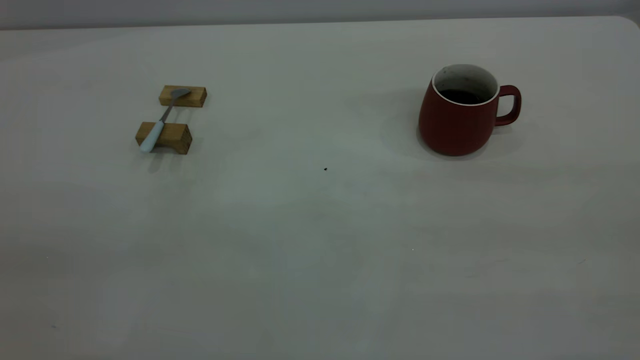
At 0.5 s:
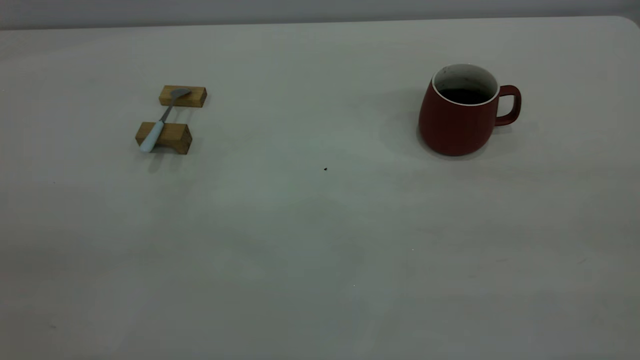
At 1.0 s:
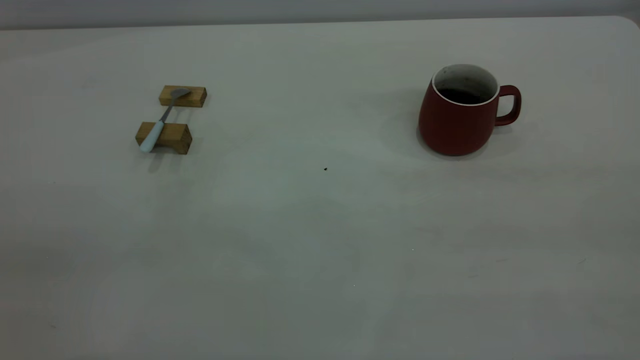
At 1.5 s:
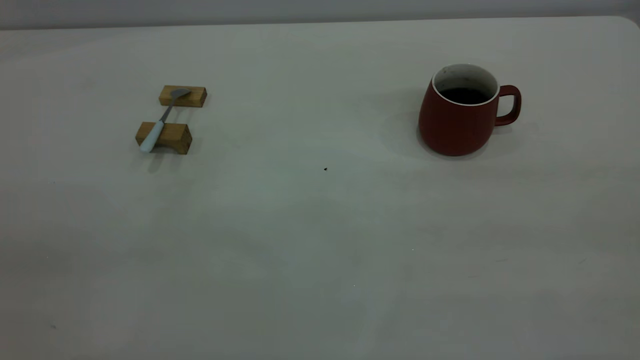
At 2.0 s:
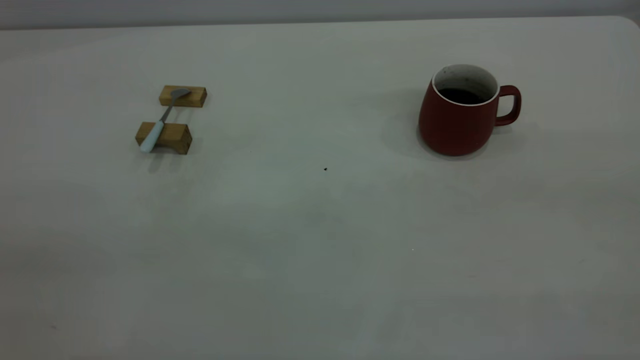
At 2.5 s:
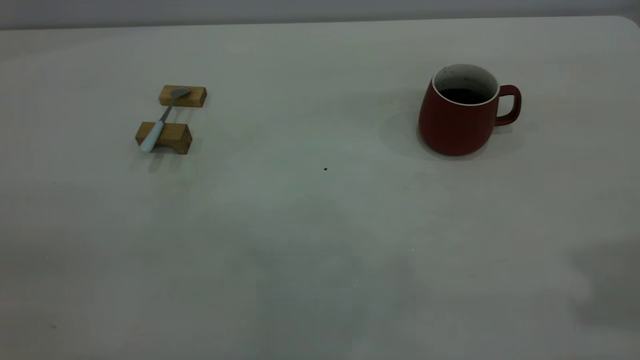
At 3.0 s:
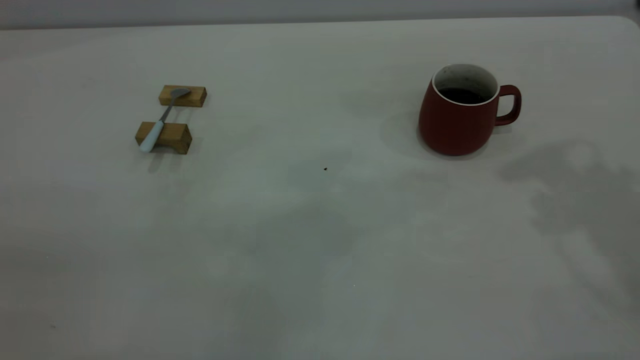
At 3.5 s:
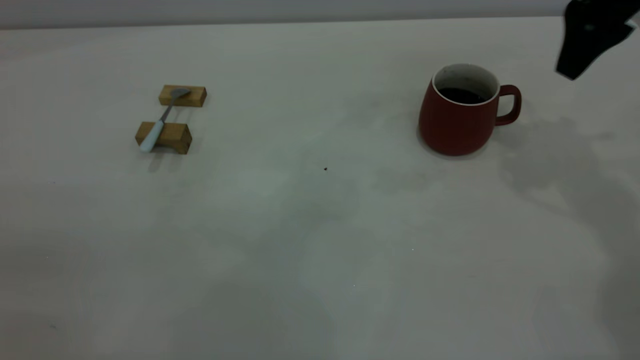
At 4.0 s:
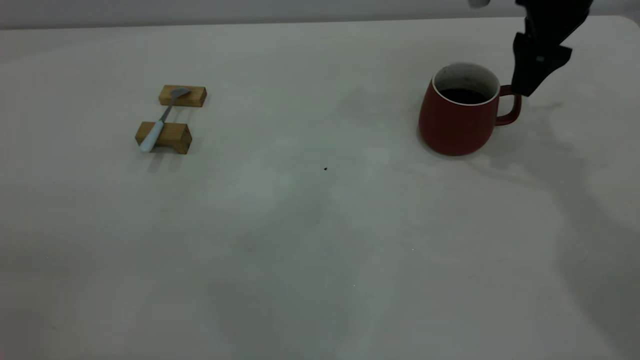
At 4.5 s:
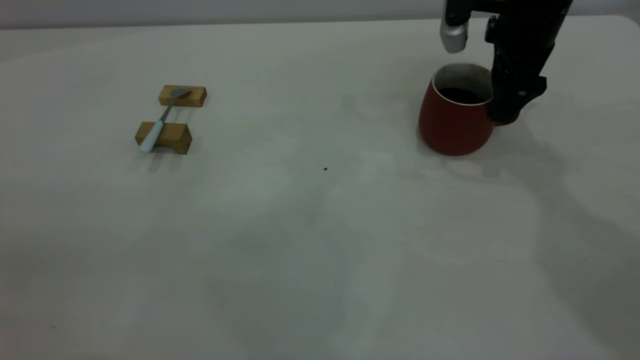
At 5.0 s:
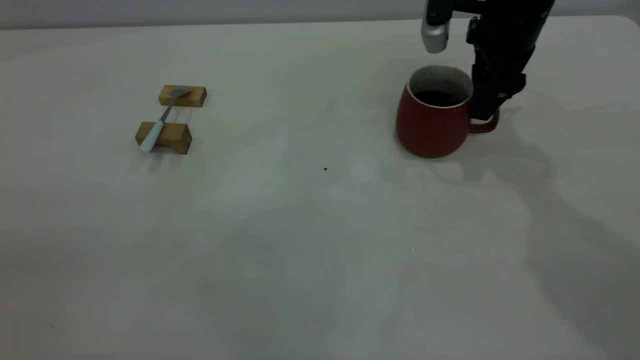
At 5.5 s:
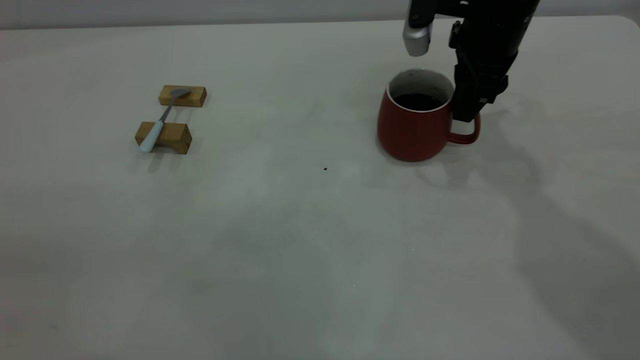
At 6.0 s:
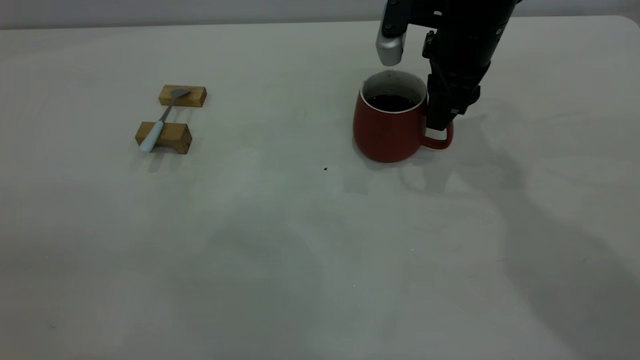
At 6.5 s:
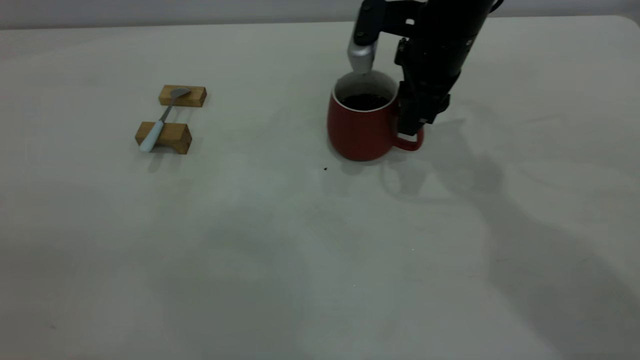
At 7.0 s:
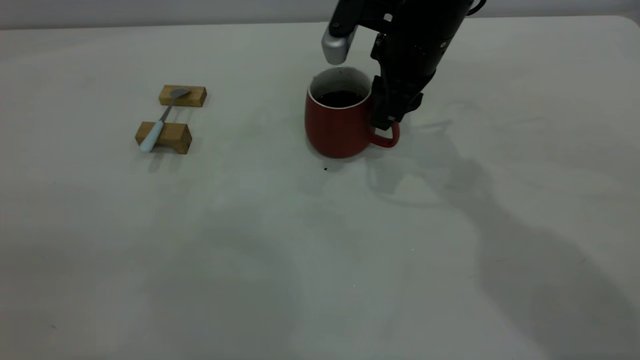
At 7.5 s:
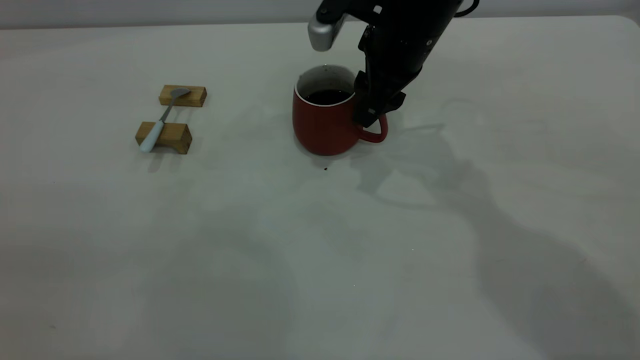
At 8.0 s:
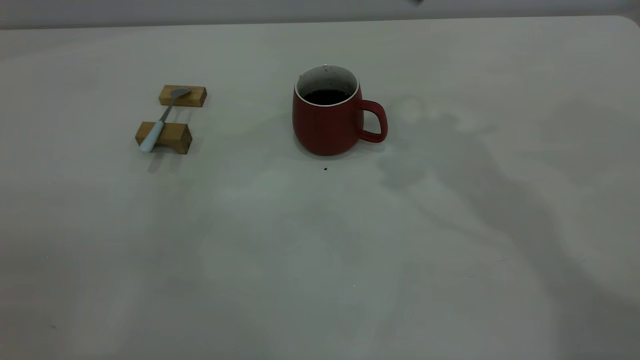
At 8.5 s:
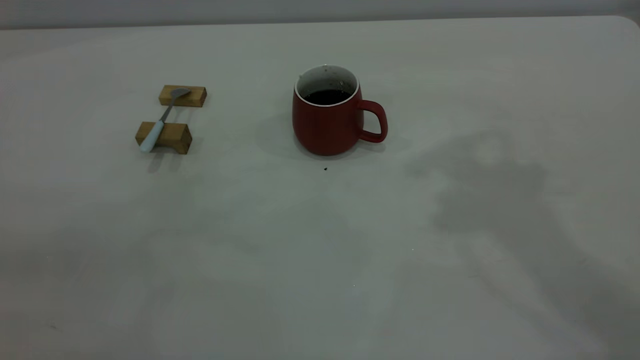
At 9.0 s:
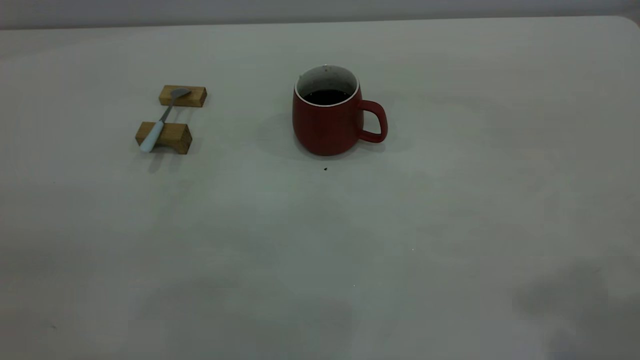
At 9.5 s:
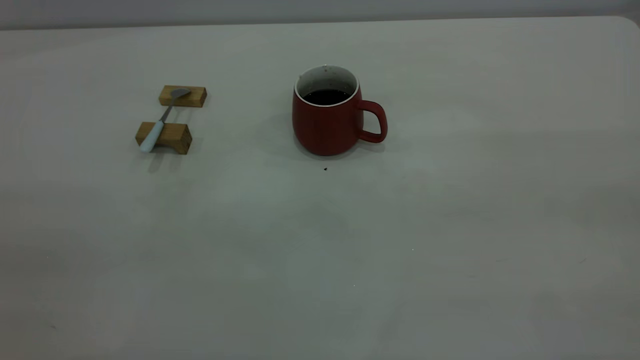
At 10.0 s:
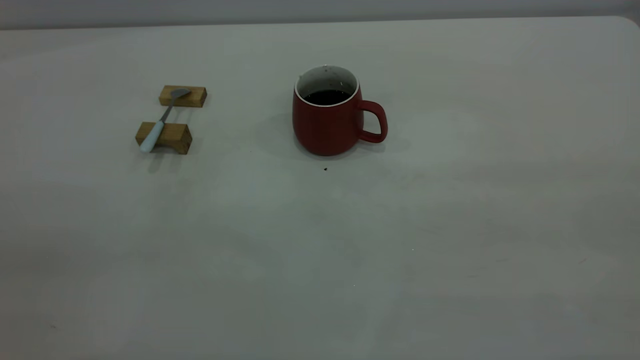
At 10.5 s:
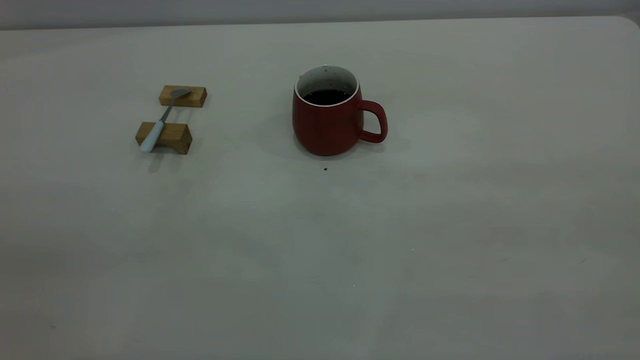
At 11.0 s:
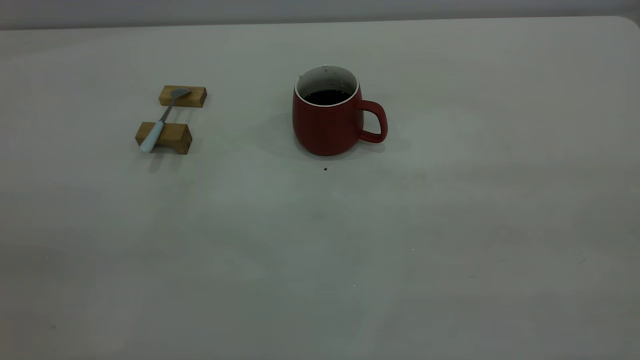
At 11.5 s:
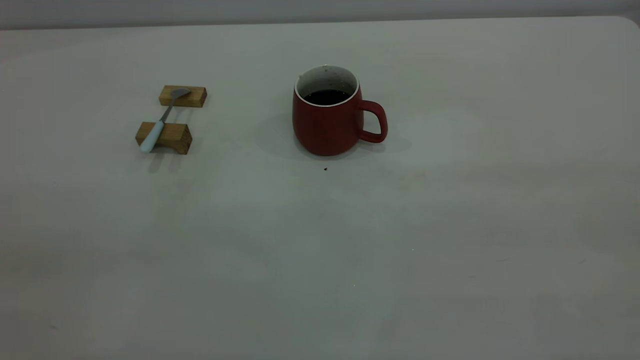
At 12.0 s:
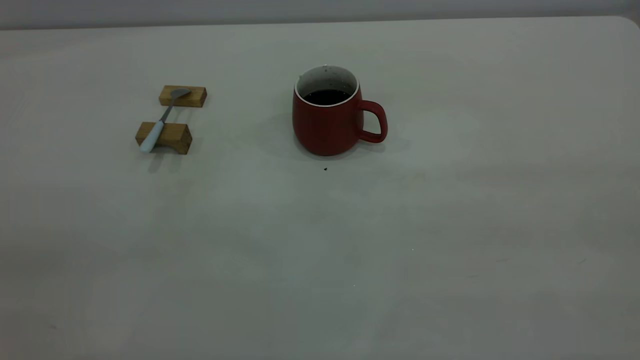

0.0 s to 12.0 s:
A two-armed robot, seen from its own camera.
Step, 0.0 to 7.5 s: Move the cup with coffee to the center of view.
2.0 to 4.0 s: The right gripper is displaced forward and downward by approximately 50 cm, and opens.
4.0 to 6.0 s: The right gripper shifts approximately 10 cm to the left, and closes up.
6.0 to 8.0 s: The right gripper travels upward by roughly 20 cm, and opens up.

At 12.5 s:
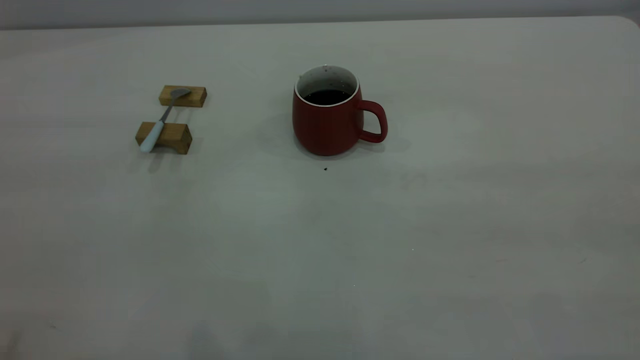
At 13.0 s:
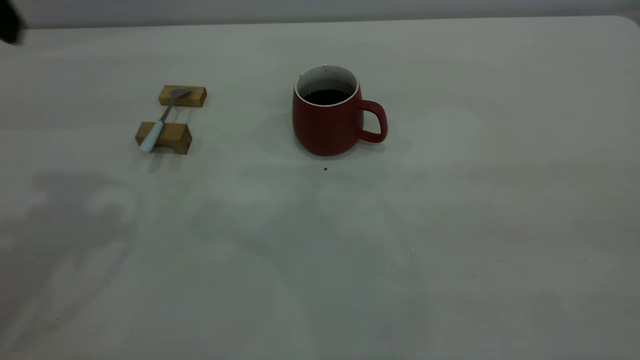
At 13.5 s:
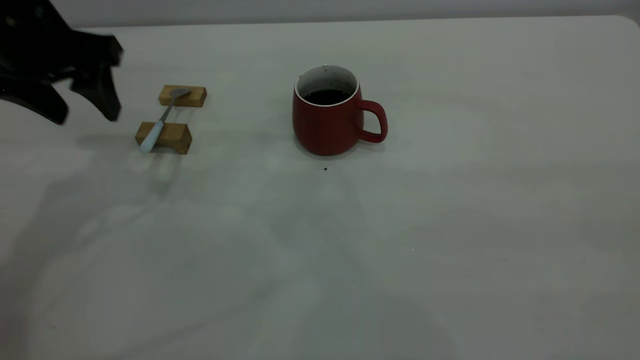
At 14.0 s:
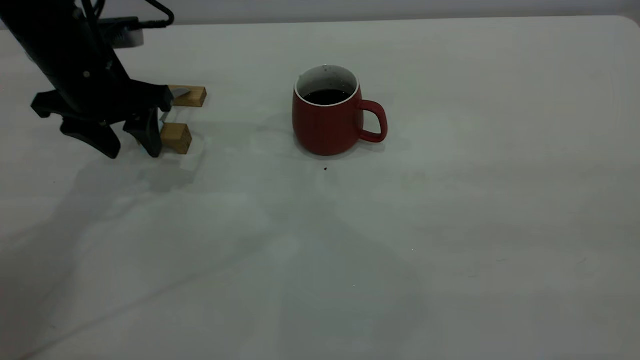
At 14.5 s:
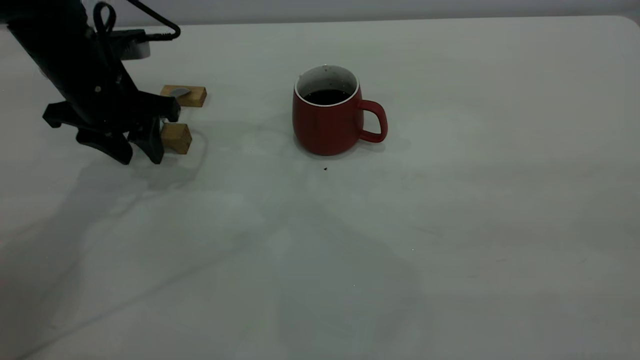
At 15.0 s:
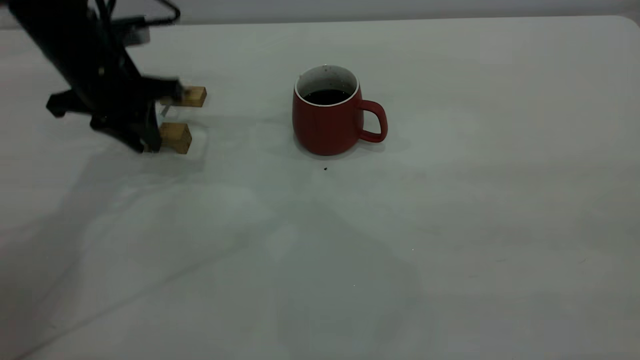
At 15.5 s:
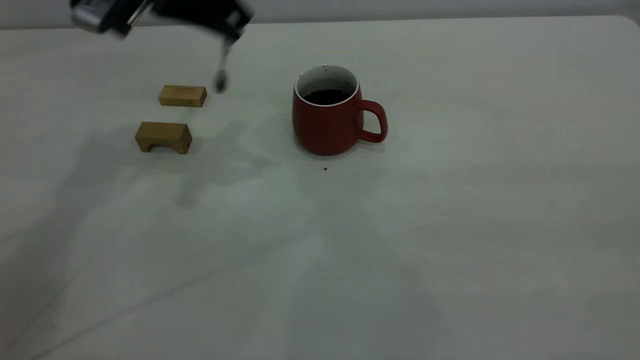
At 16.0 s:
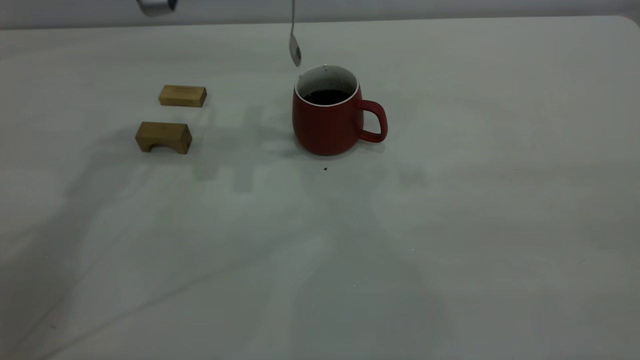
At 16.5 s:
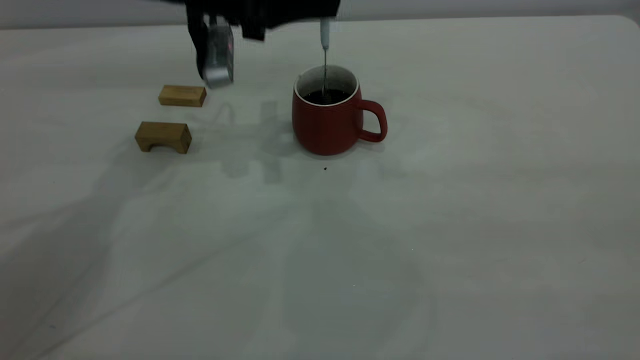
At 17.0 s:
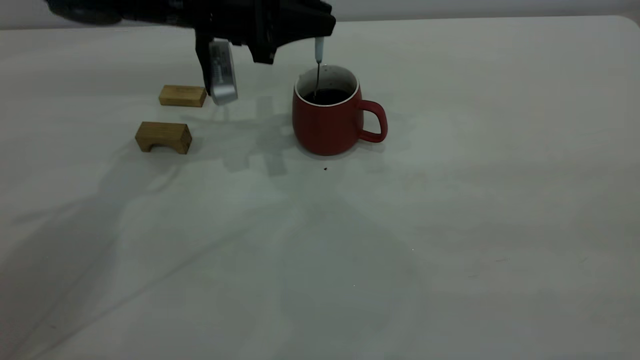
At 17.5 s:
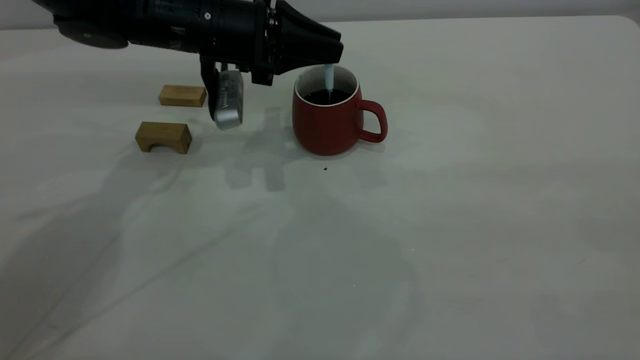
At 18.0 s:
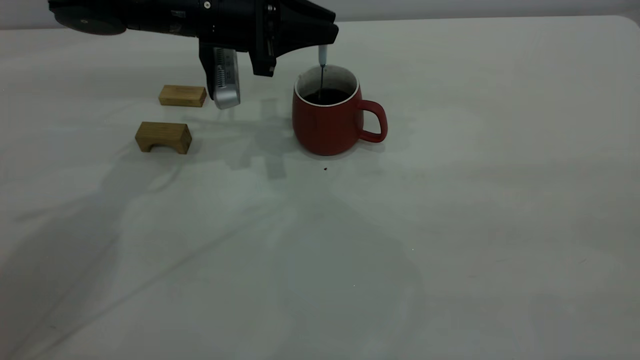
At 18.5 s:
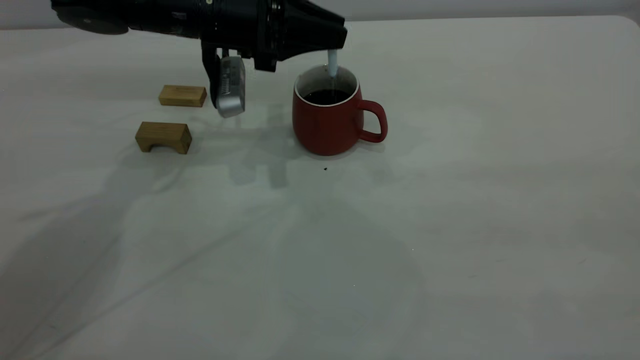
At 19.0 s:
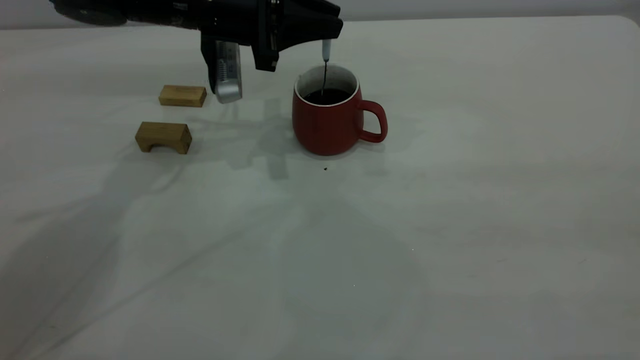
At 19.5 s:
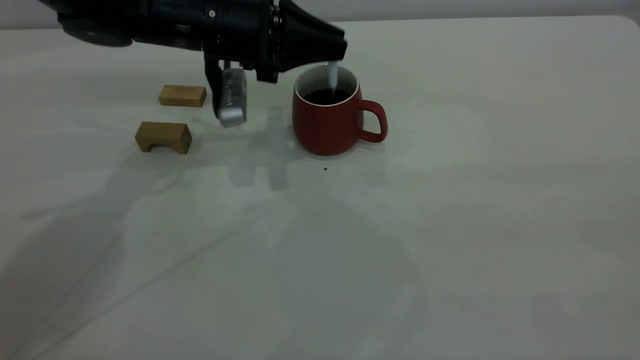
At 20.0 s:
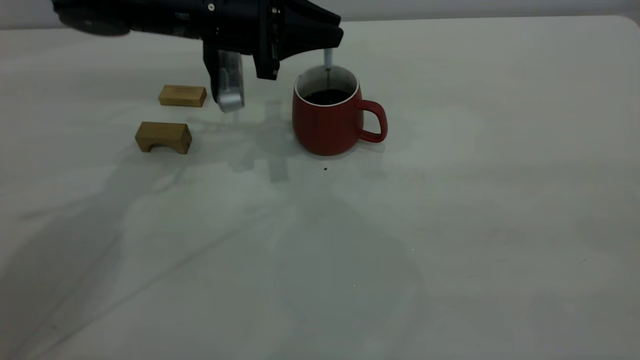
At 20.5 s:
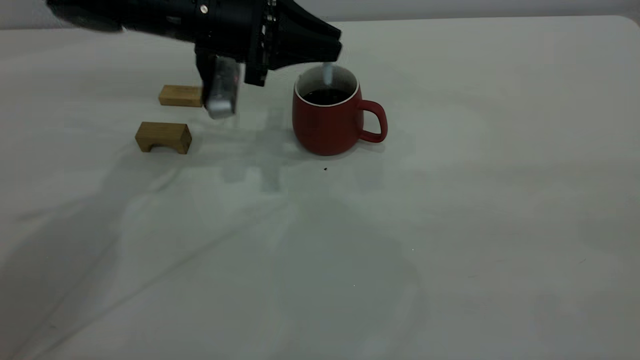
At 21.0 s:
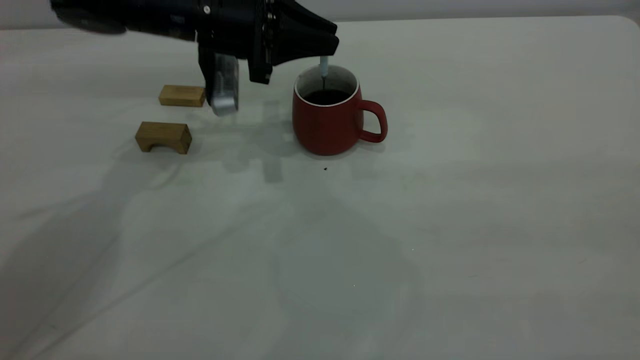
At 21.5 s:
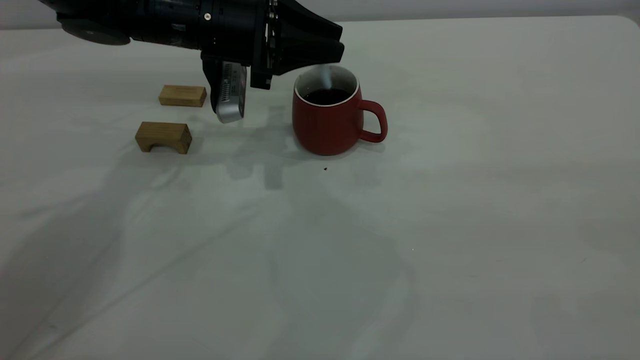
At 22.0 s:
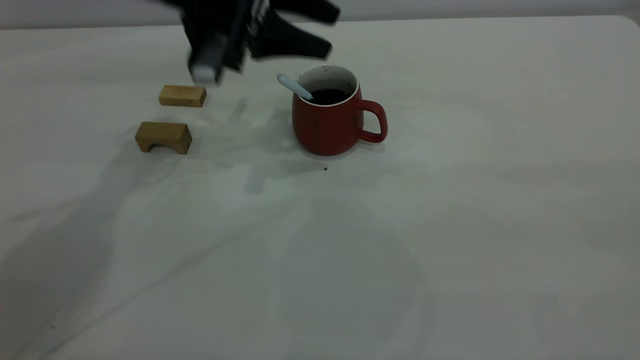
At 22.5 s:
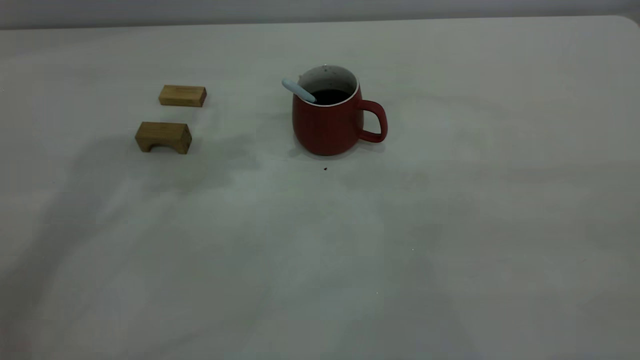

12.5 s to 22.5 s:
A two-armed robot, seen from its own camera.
Step, 12.5 to 15.0 s: Pick up the spoon.
Step, 15.5 to 22.0 s: Stir the coffee in the cup.
12.5 to 14.5 s: The left gripper goes approximately 40 cm forward and downward, and closes up.
14.5 to 16.5 s: The left gripper goes approximately 10 cm to the right and upward, and closes.
16.5 to 20.5 s: The grippers stay close to where they were, moving slightly.
20.5 to 22.5 s: The left gripper travels upward by about 25 cm, and opens up.
